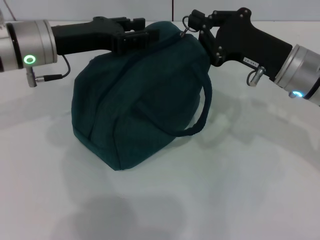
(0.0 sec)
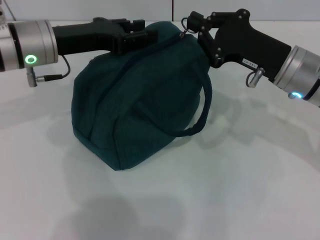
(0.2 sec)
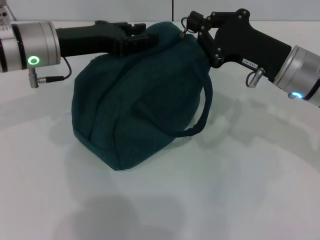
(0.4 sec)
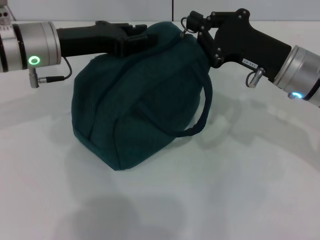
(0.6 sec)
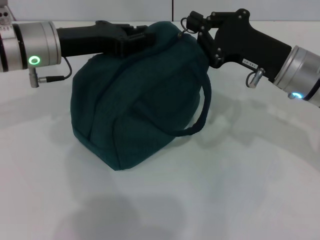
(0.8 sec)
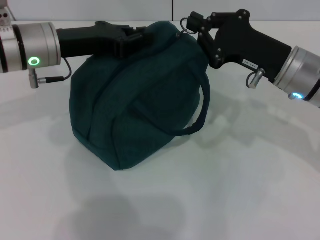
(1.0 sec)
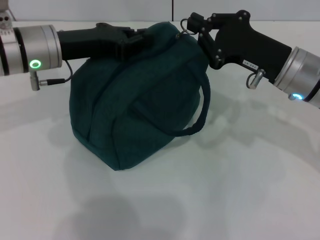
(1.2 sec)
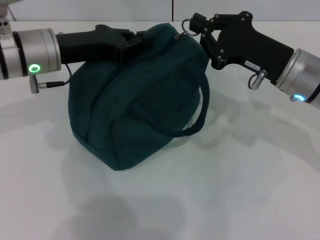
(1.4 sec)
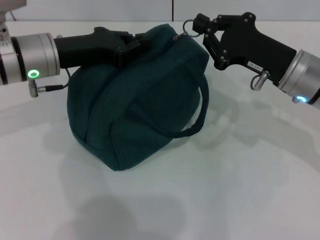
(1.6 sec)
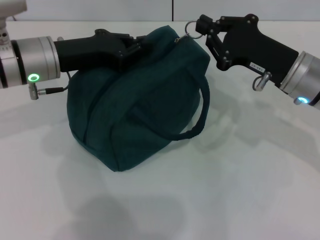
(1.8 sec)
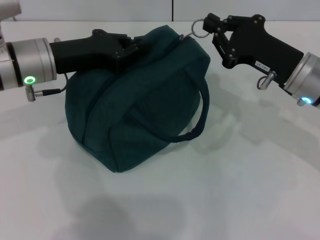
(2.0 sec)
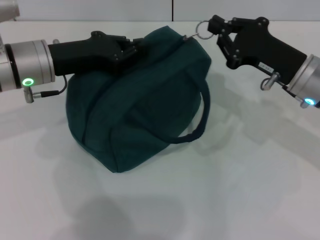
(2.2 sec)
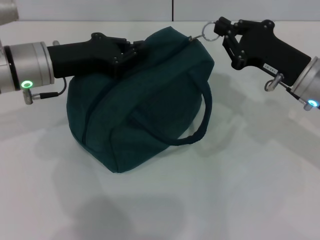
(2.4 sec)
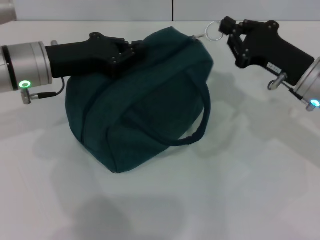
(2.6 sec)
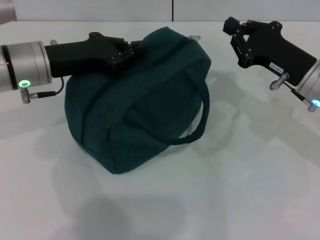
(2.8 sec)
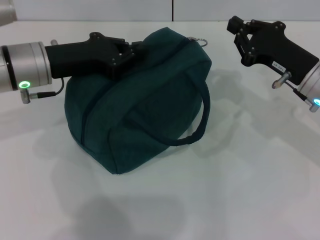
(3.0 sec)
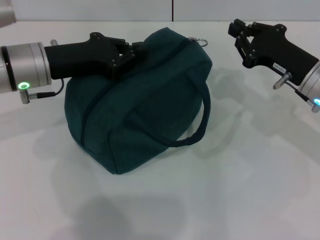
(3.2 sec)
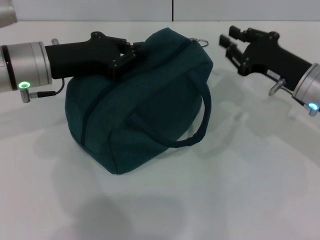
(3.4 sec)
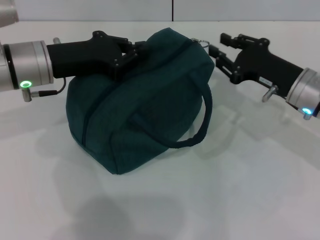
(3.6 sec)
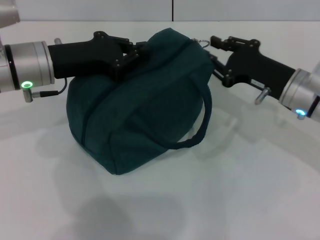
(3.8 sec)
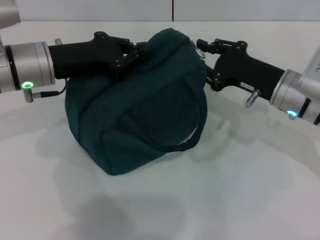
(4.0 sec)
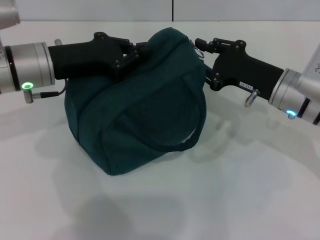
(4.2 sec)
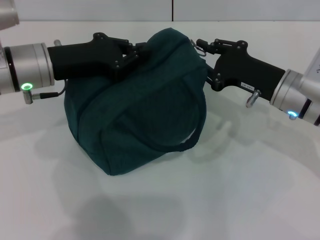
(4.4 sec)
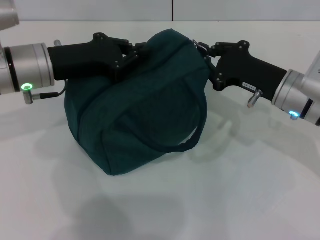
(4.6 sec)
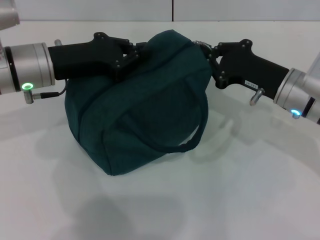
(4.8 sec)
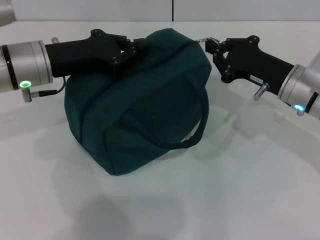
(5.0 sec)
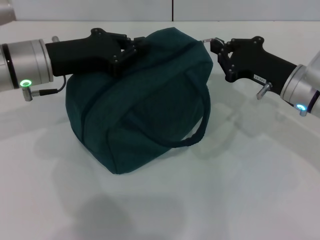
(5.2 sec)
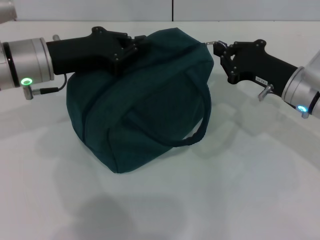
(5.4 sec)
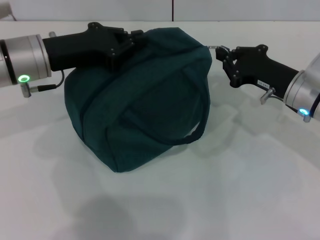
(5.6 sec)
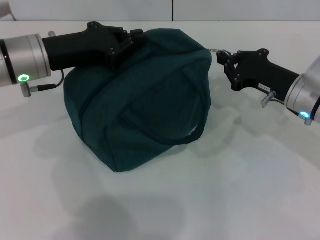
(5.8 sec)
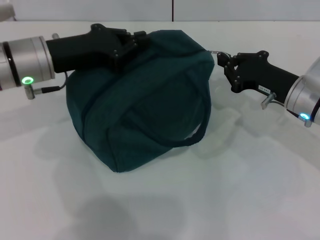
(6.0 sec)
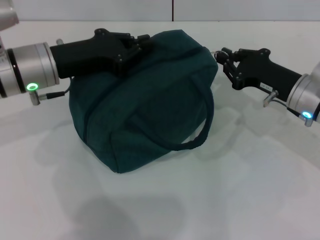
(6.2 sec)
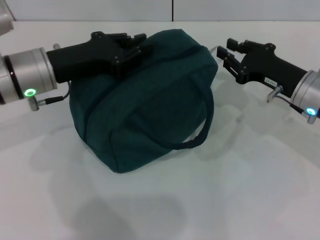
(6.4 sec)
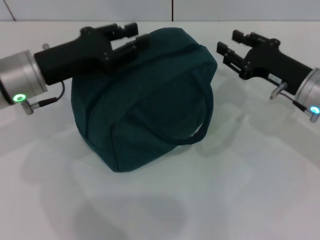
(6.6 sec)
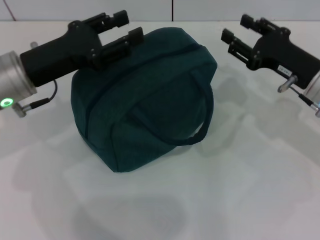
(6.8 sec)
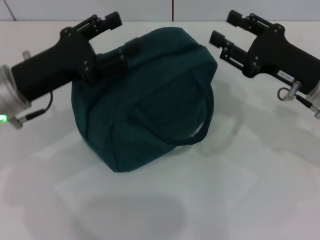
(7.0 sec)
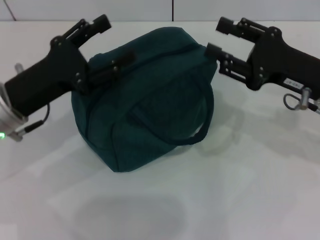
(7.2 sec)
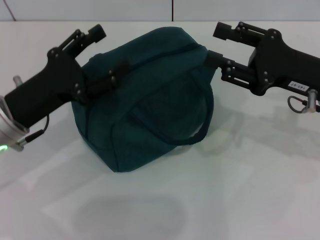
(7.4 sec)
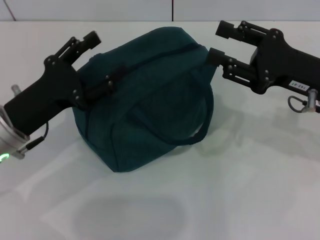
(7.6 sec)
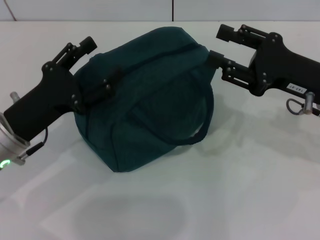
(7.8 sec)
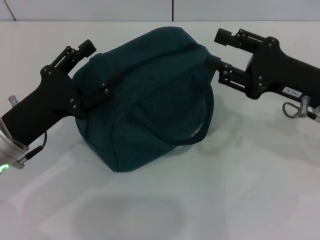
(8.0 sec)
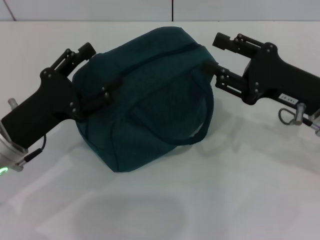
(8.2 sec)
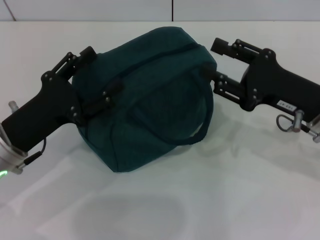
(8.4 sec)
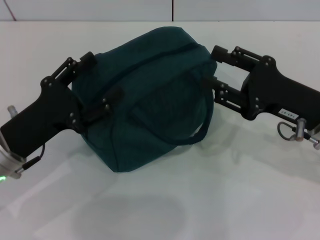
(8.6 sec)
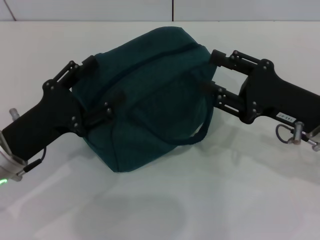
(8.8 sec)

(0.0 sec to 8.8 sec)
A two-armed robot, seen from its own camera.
Step, 0.0 sec - 6.2 sec: Zip up the lunch bag with your right hand.
0.0 sec - 1.4 sec: The left gripper closes its fingers.
1.4 sec - 3.0 sec: There are only small adjustments of the grippers.
3.0 sec - 4.4 sec: The right gripper opens.
4.4 sec - 5.8 sec: The grippers move only a little.
5.8 sec - 7.4 sec: The right gripper heads upward, covering approximately 5 cm, and opens up; the left gripper travels backward by approximately 10 cm, and opens its fingers.
7.4 sec - 8.8 sec: The grippers stay close to where they were, moving slightly.
